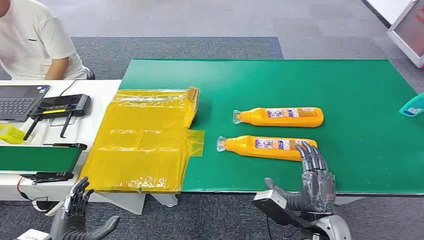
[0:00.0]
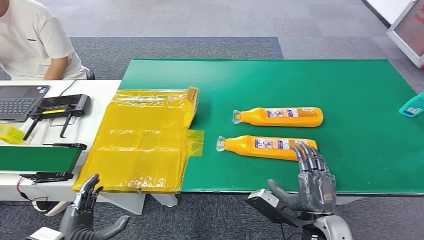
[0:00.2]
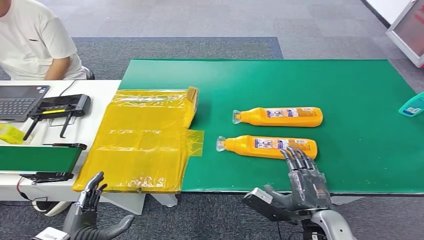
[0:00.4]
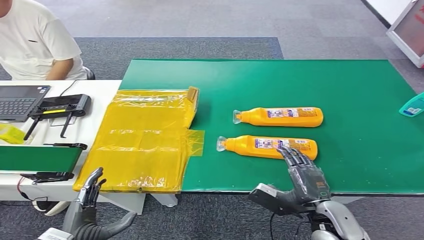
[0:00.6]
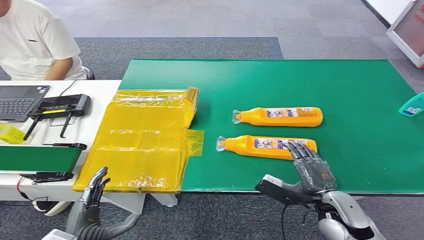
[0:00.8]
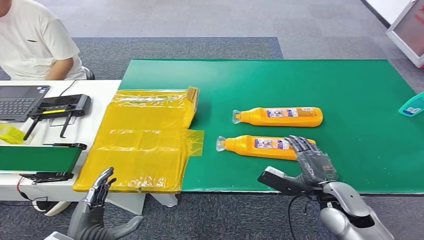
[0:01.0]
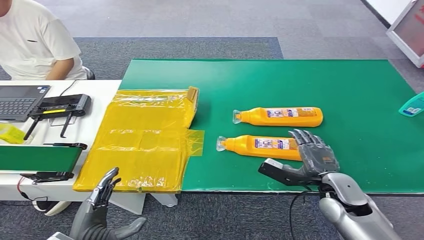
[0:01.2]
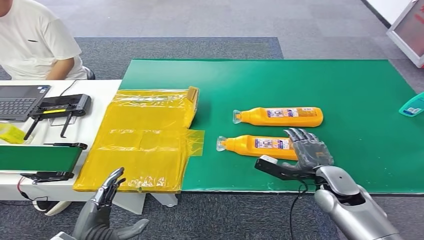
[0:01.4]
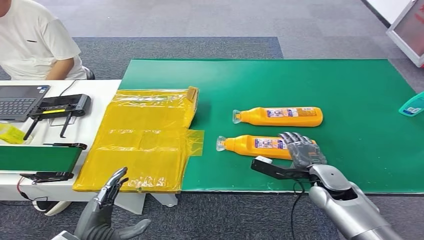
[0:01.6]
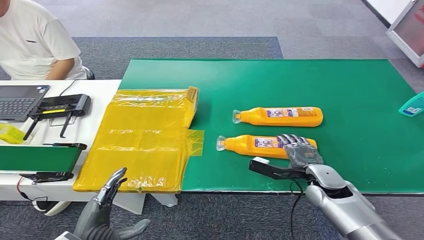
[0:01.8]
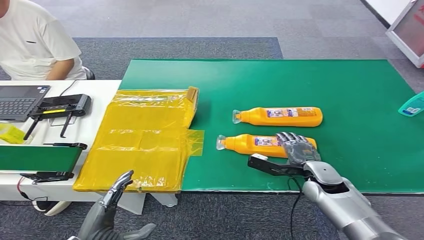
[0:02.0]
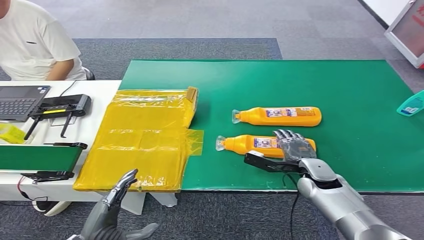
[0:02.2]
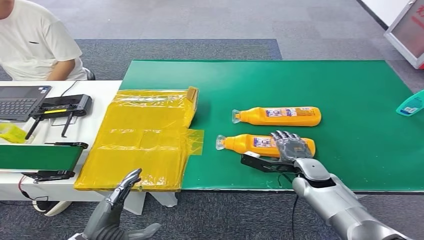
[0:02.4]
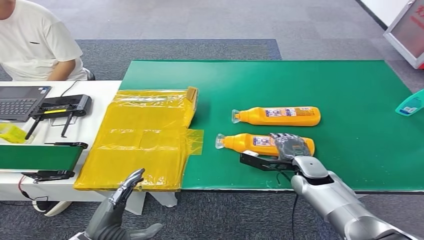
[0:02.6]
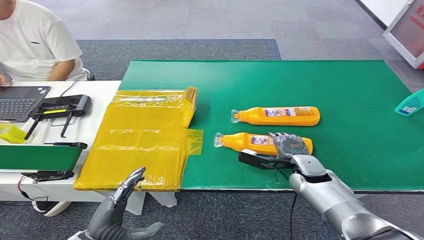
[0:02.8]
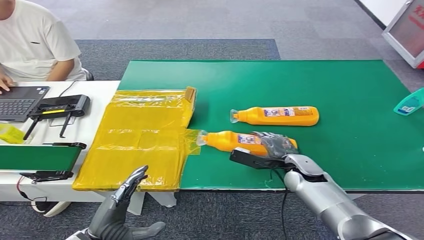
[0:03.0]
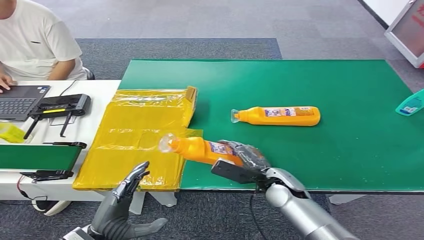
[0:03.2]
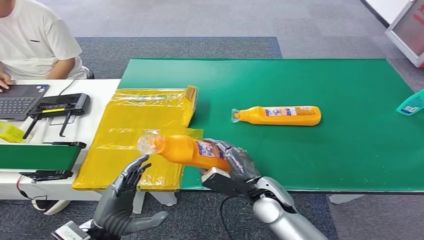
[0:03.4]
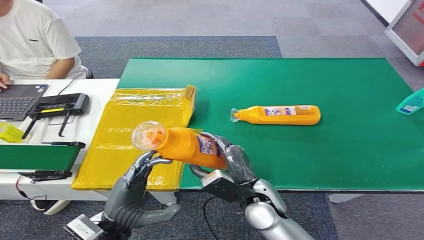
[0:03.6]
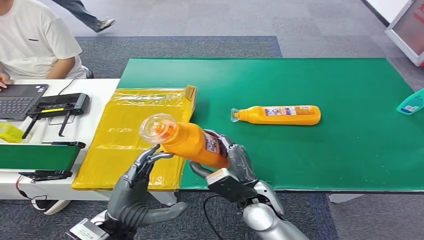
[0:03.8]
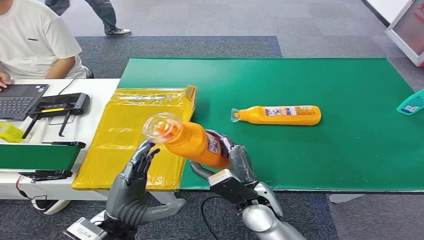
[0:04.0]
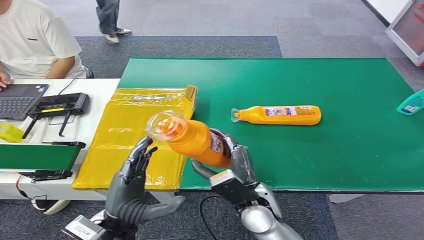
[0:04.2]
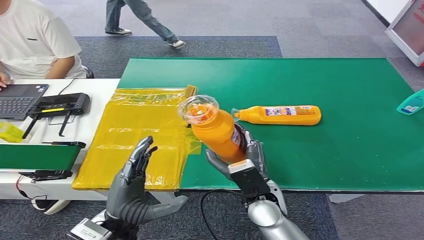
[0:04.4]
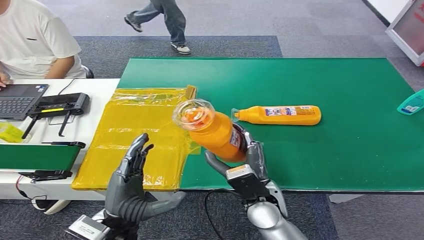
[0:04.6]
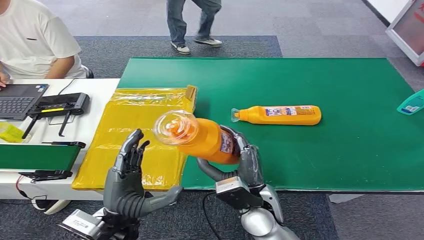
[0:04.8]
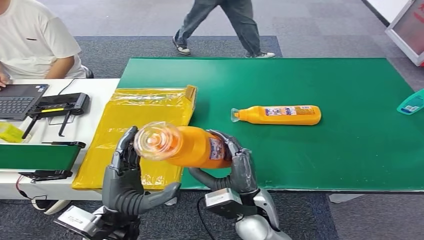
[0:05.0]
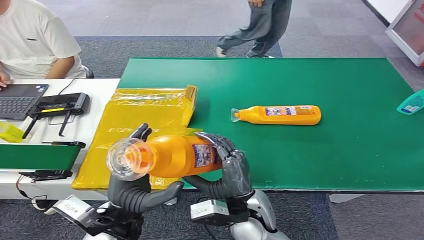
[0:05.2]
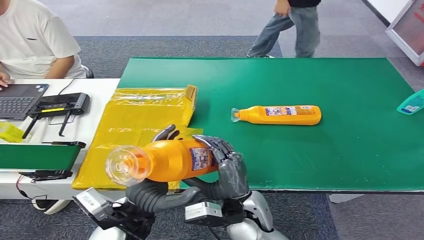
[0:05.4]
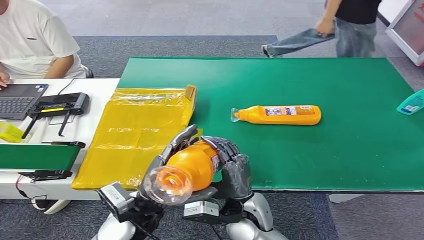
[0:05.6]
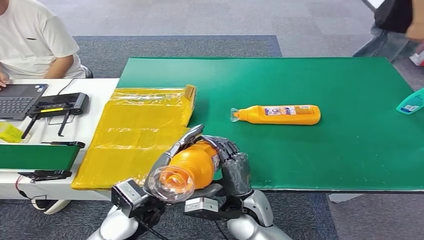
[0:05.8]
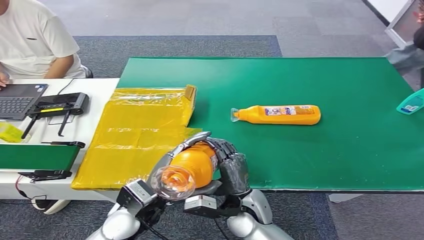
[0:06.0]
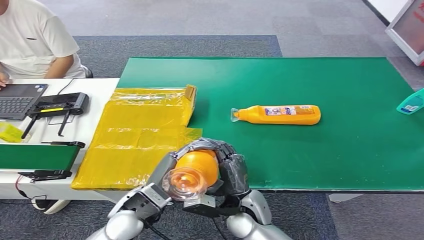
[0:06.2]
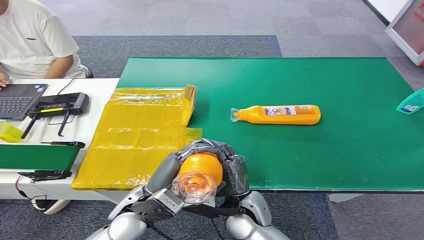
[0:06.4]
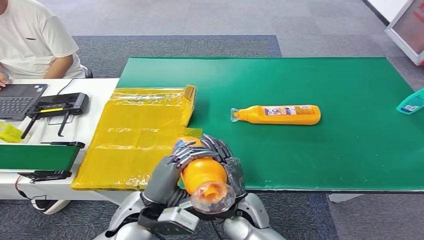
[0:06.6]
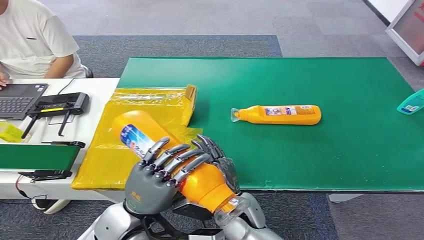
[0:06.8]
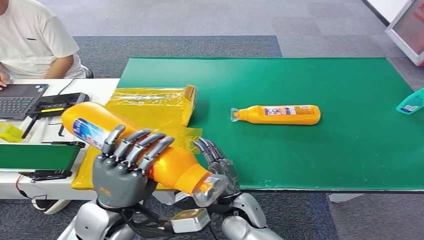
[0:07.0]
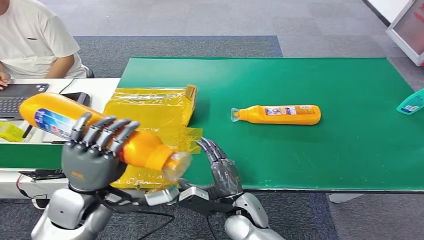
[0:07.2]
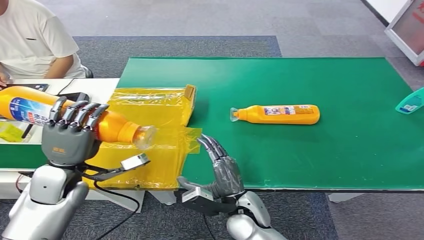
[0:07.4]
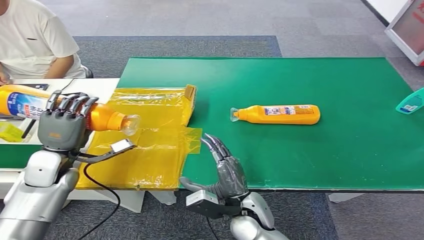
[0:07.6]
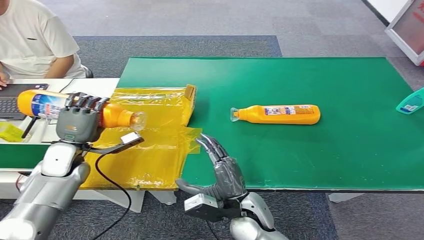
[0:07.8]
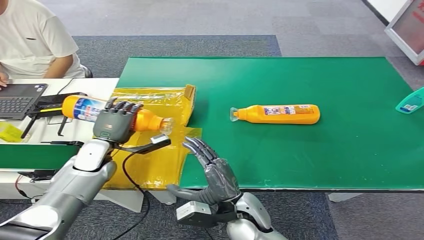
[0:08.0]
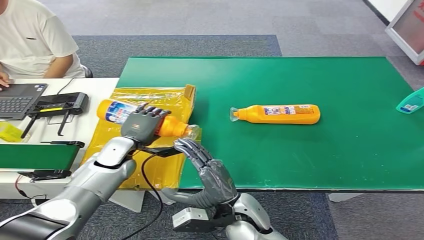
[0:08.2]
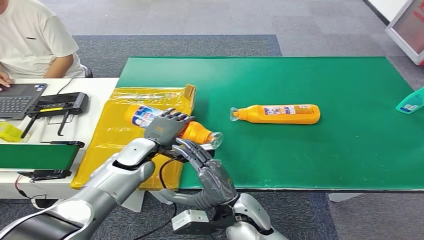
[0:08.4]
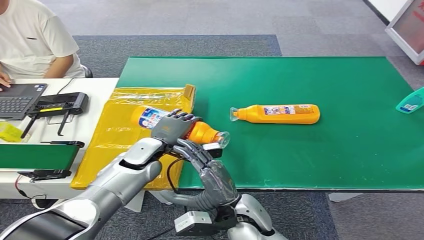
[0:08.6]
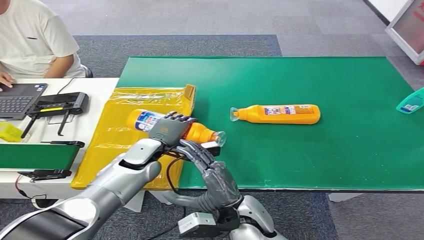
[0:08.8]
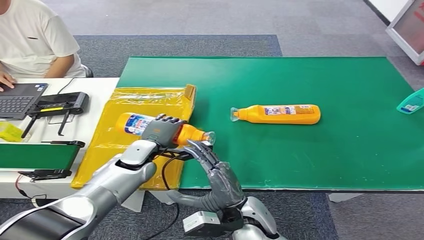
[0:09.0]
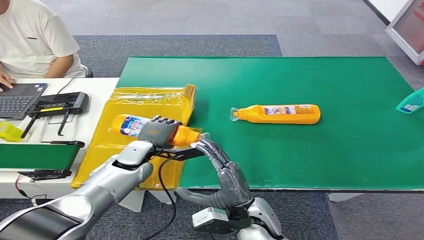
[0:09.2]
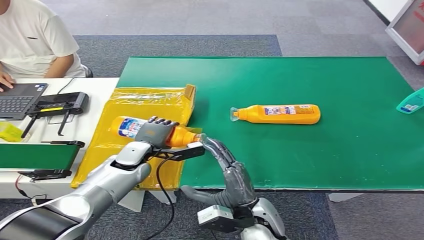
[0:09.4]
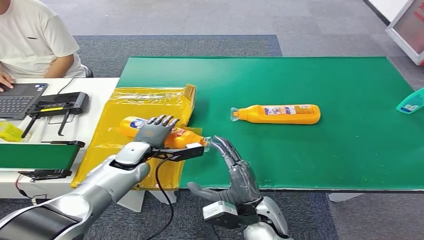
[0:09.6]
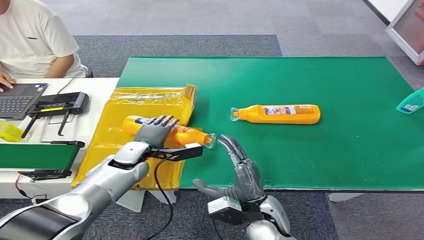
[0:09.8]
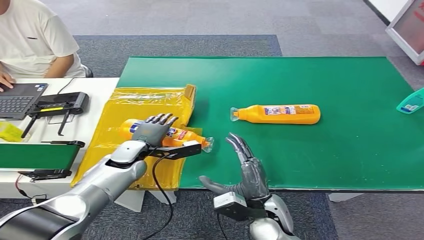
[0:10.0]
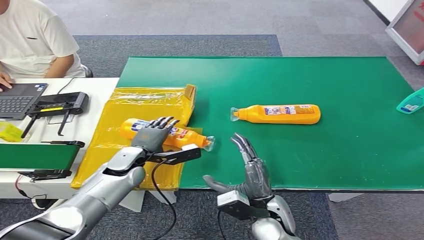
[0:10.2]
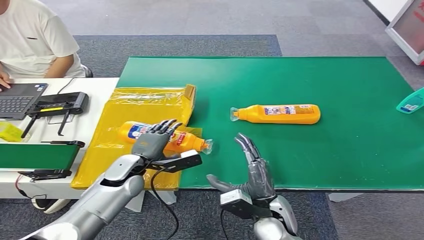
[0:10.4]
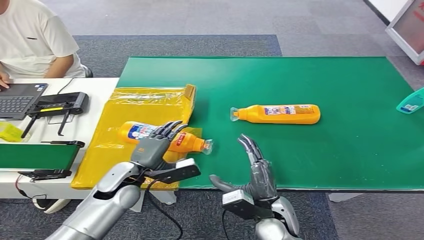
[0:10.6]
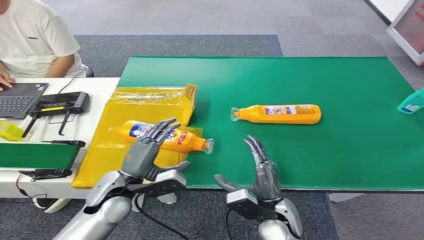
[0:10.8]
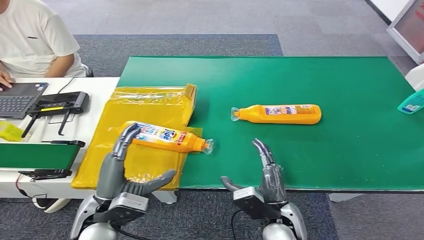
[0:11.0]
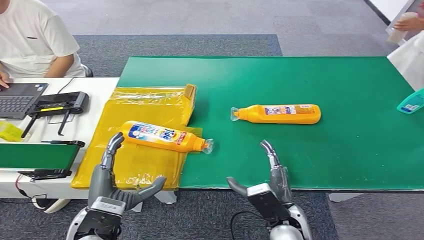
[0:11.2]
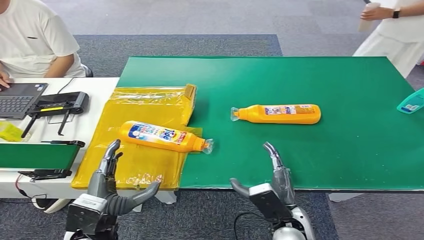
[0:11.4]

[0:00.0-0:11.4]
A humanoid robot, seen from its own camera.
Step, 0:00.0 to 0:03.8: Pick up the bottle from the table.
Step, 0:04.0 to 0:11.4: Turn the bottle to the front side.
0:01.4 to 0:02.8: The right hand moves forward and to the left, approximately 10 cm.
0:04.2 to 0:05.6: The left hand changes place by about 5 cm.
0:08.6 to 0:10.0: The right hand is displaced to the right by approximately 5 cm. Meanwhile the left hand ends up approximately 5 cm from where it was.
0:10.0 to 0:11.4: The left hand goes about 20 cm backward. The right hand moves approximately 5 cm.

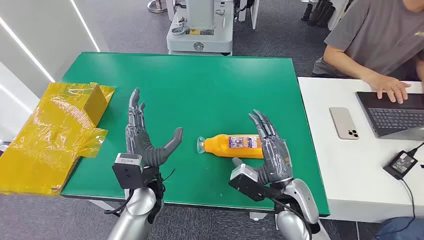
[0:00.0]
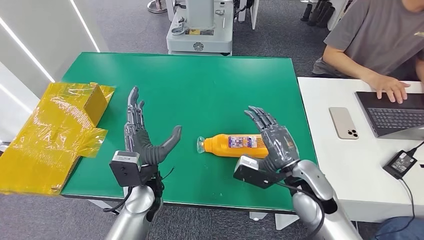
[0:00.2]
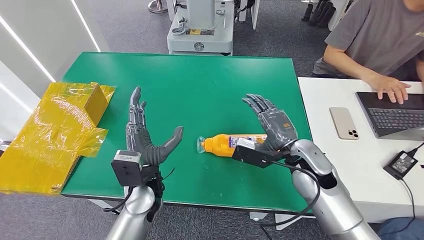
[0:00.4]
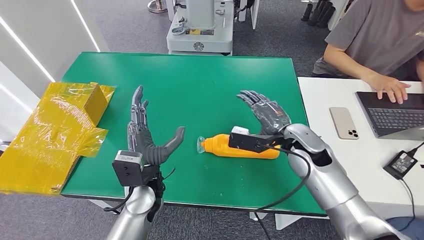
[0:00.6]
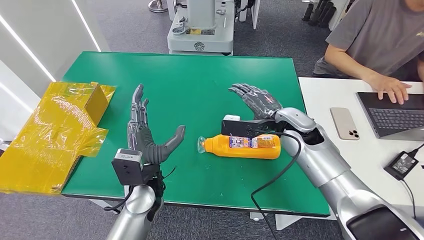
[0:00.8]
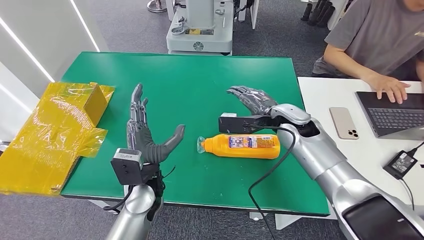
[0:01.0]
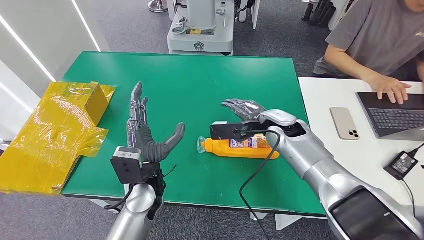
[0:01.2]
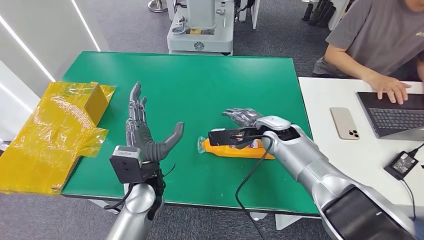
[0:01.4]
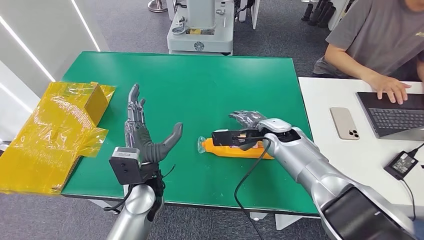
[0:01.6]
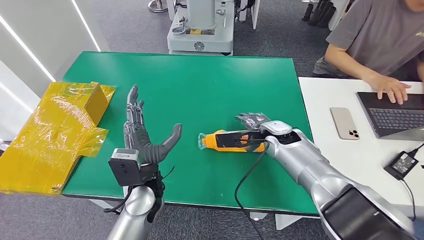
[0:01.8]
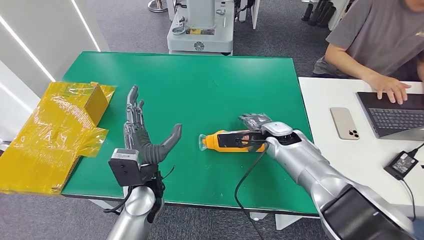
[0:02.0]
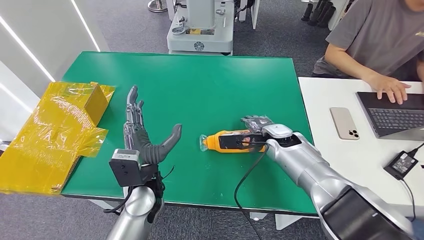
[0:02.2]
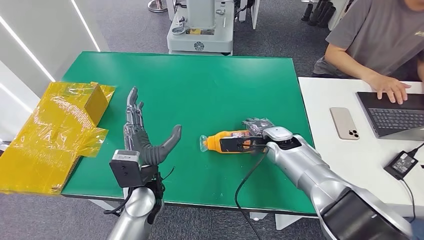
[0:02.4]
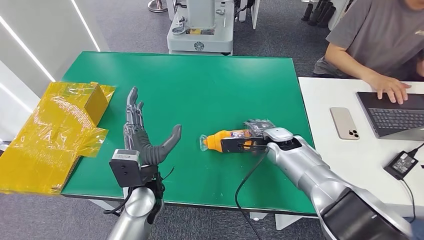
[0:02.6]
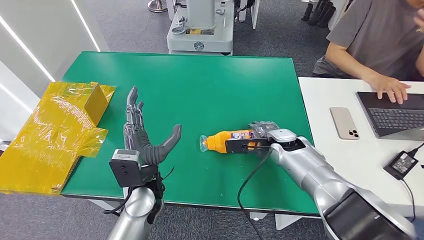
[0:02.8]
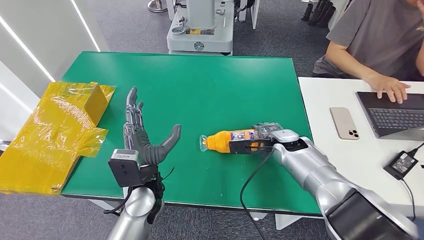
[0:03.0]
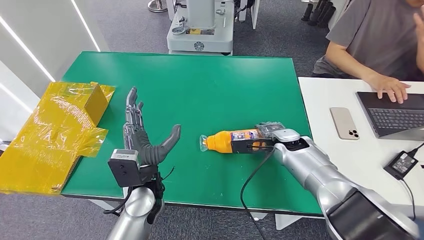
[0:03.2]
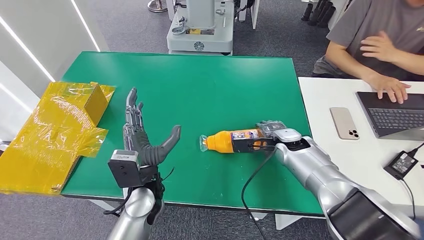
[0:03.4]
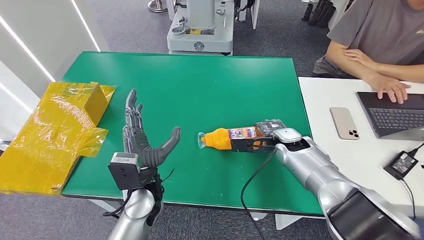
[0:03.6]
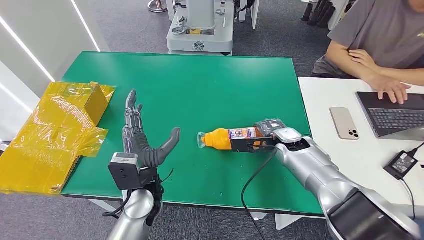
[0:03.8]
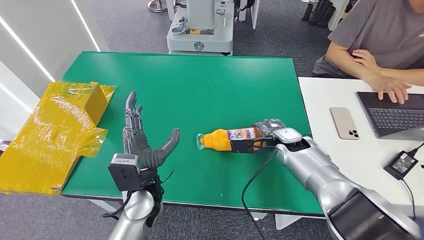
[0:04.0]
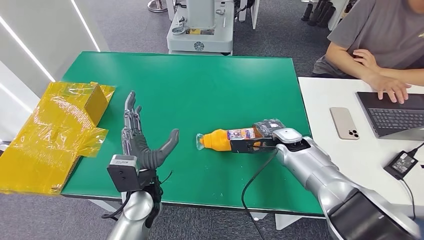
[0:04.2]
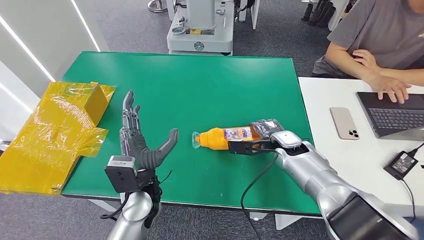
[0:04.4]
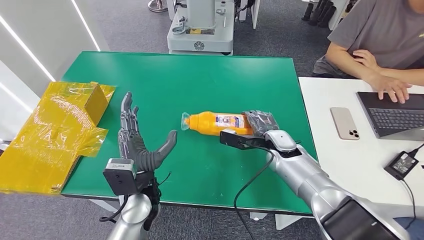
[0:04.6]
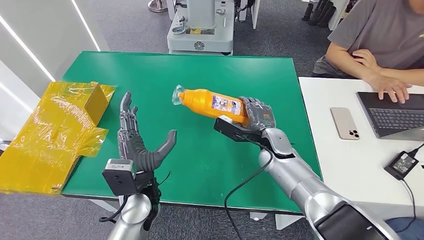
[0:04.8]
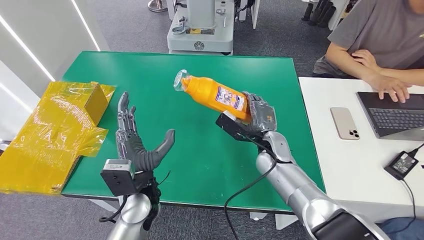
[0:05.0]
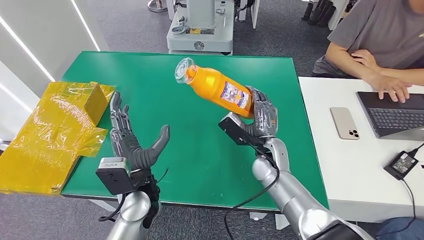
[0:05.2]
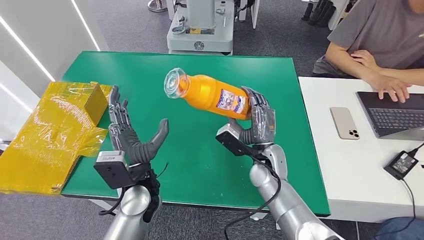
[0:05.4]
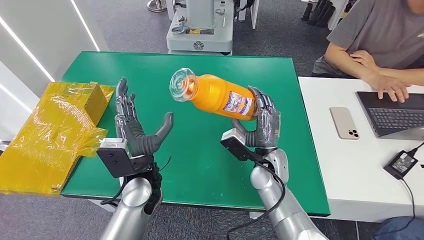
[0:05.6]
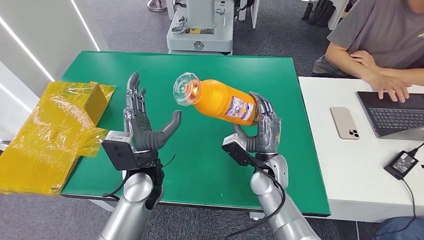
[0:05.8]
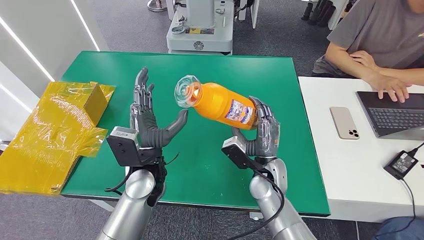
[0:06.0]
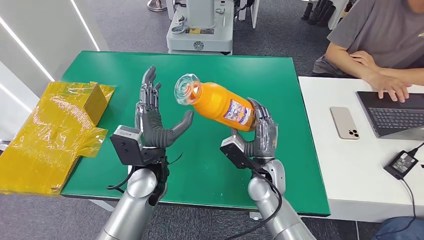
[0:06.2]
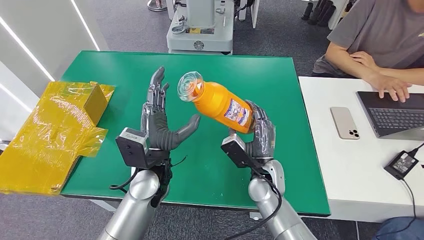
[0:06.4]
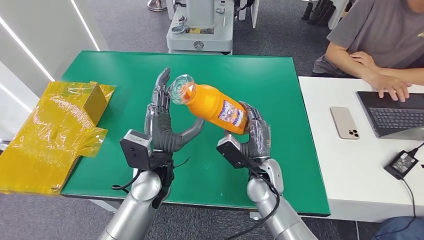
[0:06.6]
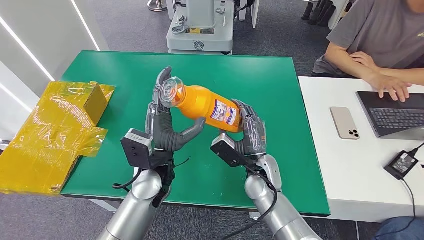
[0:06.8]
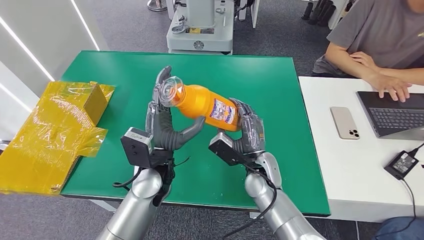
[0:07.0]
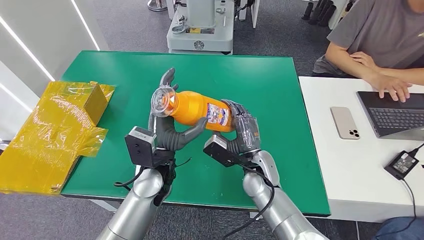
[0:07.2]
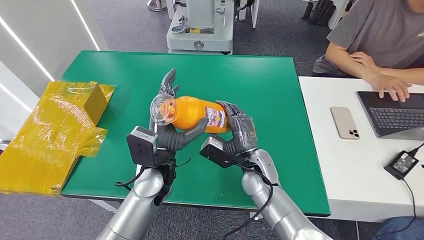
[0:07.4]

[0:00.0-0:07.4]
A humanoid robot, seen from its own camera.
Step, 0:00.0 to 0:05.8: Pick up the bottle from the table.
0:01.4 to 0:03.0: The right hand shifts by approximately 5 cm.
0:03.0 to 0:04.4: The hands stay close to where they were, moving slightly.
0:04.4 to 0:06.0: The left hand ends up approximately 5 cm from where it was. Meanwhile the right hand heads to the left and backward, covering some 15 cm.
0:06.0 to 0:07.4: The hands move only a little.